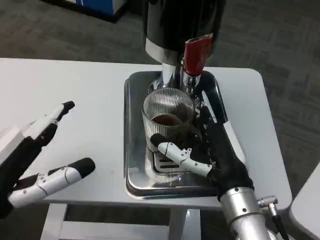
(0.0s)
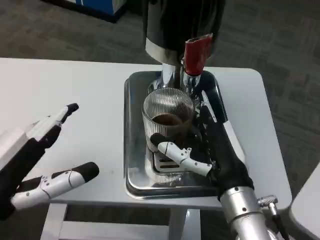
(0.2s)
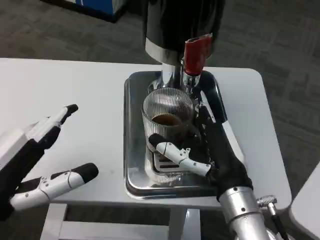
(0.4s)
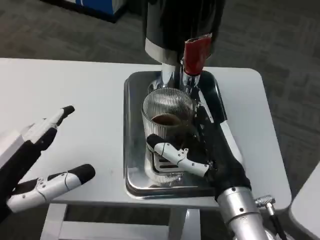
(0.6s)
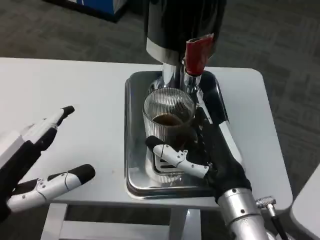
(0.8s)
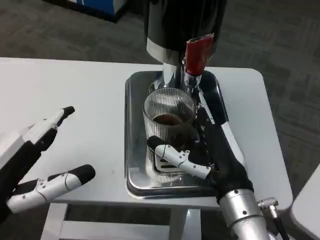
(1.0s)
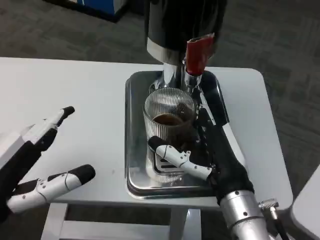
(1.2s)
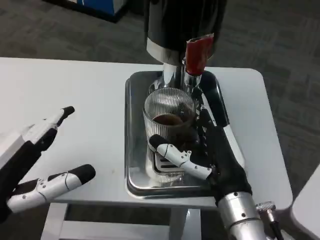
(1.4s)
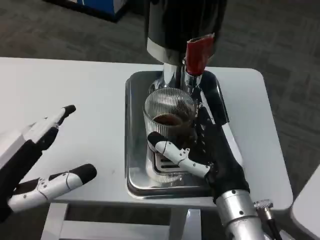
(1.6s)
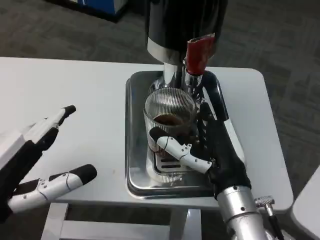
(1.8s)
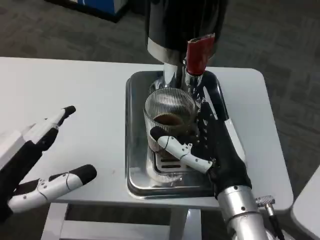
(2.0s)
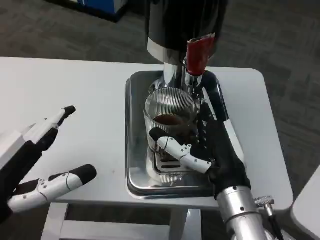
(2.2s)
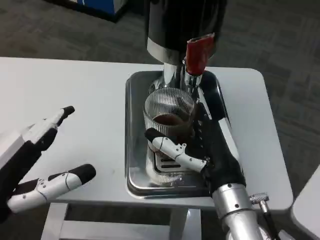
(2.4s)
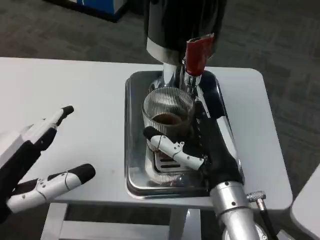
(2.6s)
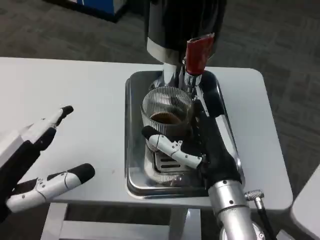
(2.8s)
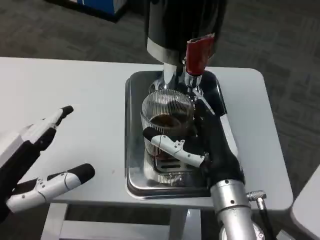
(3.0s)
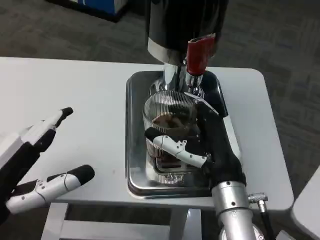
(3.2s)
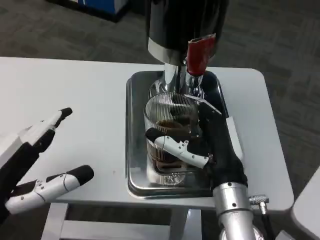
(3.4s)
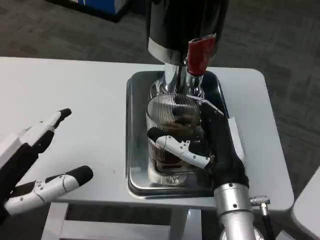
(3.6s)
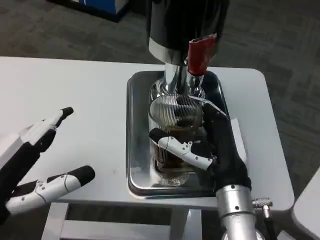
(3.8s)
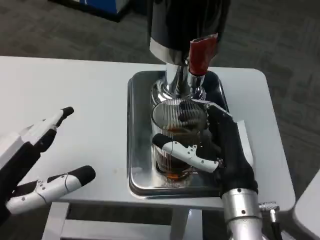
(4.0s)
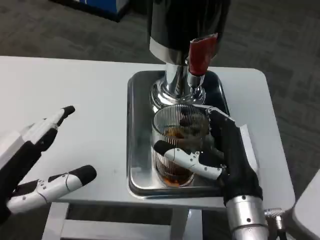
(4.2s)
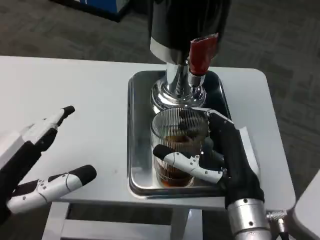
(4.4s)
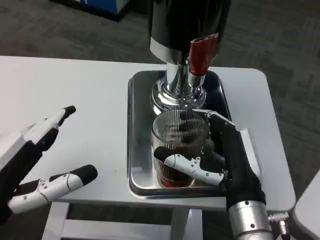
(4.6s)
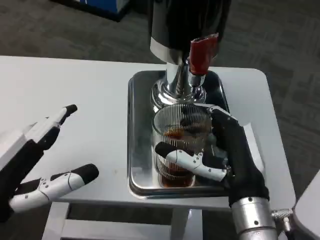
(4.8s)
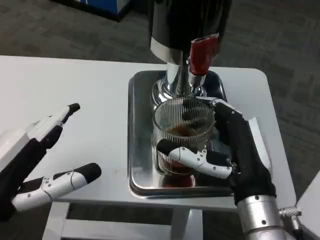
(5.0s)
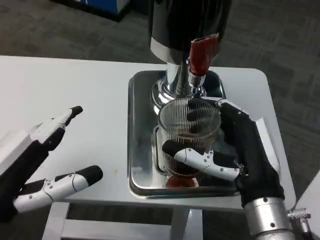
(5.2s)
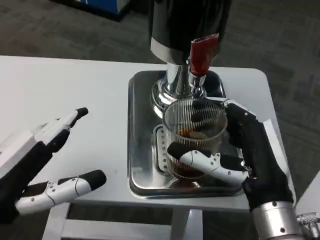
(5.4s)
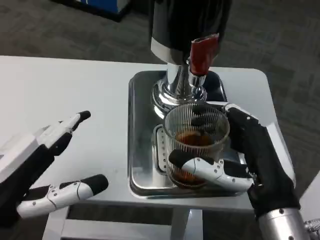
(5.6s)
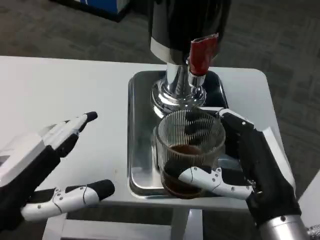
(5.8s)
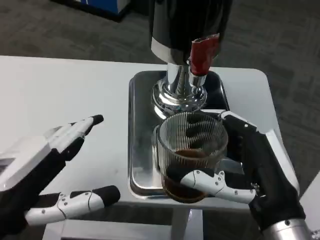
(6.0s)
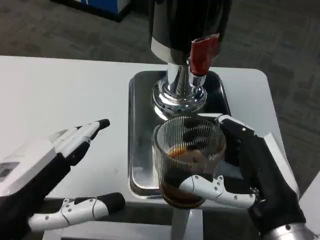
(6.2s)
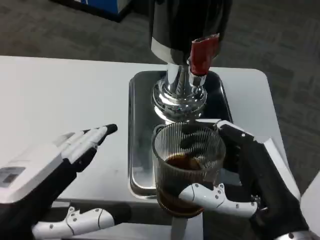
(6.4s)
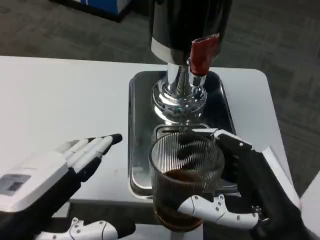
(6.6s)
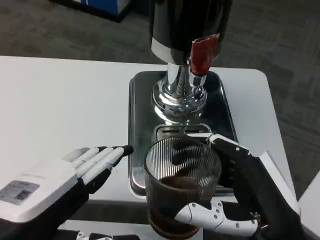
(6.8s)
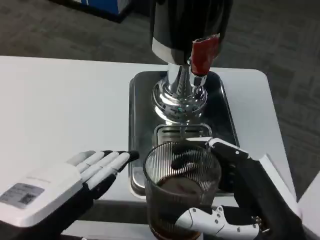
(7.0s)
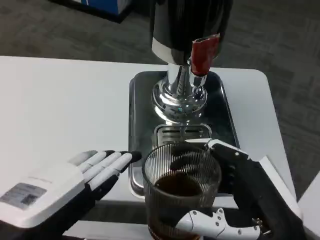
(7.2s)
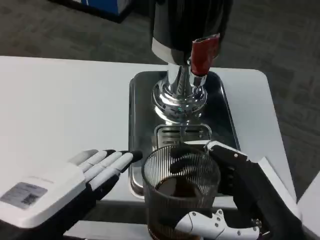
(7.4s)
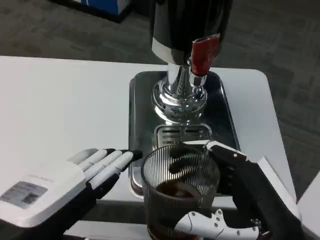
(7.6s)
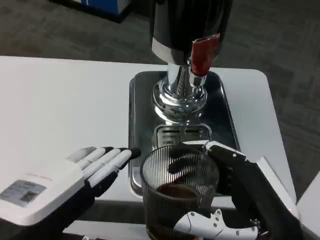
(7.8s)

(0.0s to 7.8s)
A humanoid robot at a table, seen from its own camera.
Task of the whole recording: Grasp the cup under the faucet to collect the drink, then remove the cup.
0.0s - 3.2s: The hands move only a little.
4.6s - 6.2s: The right hand travels backward by roughly 5 cm.

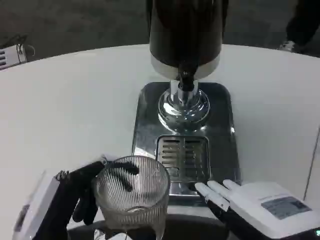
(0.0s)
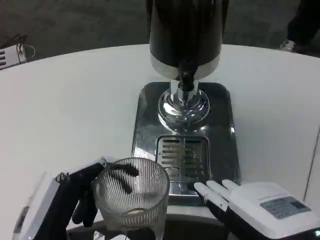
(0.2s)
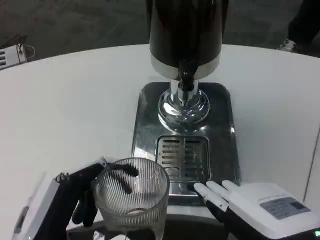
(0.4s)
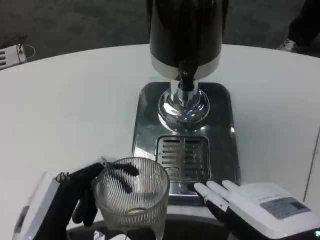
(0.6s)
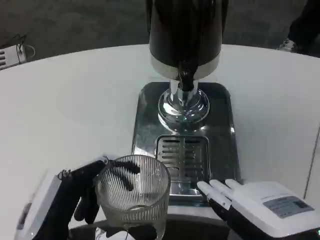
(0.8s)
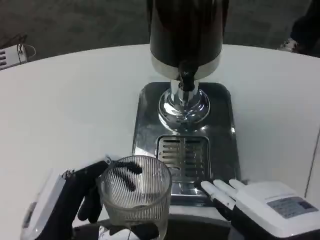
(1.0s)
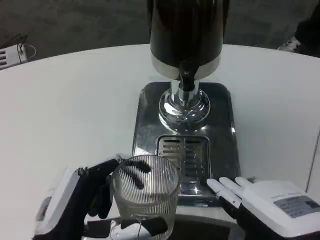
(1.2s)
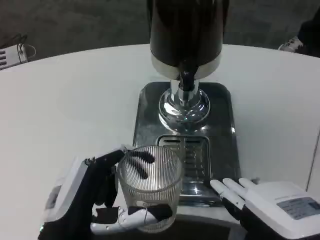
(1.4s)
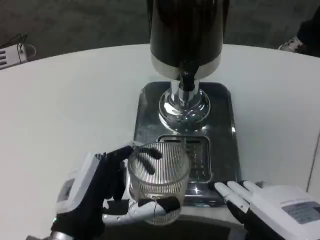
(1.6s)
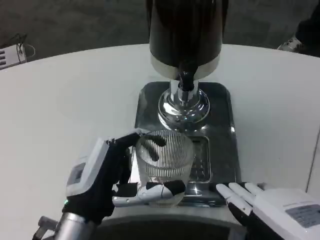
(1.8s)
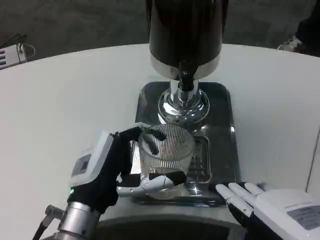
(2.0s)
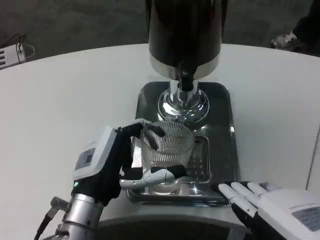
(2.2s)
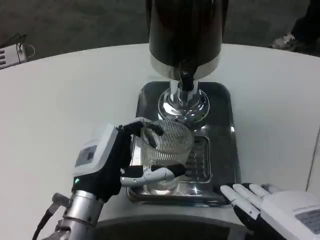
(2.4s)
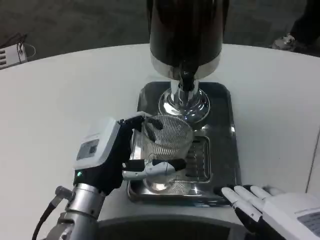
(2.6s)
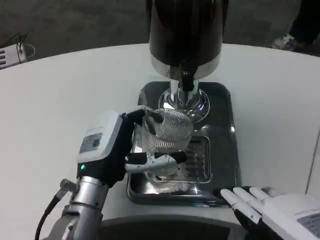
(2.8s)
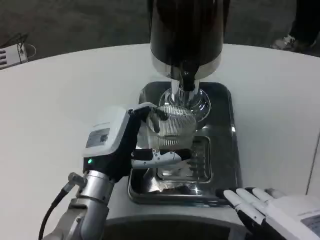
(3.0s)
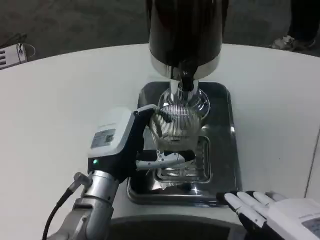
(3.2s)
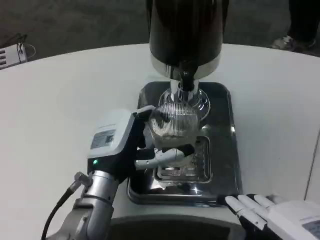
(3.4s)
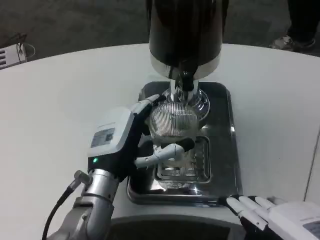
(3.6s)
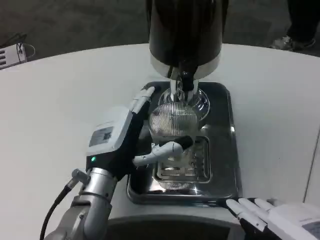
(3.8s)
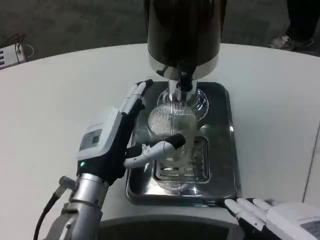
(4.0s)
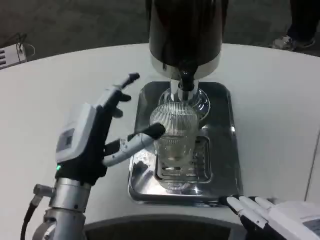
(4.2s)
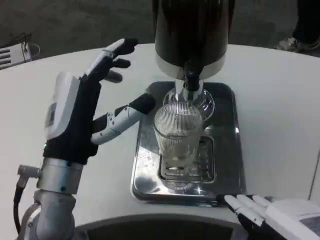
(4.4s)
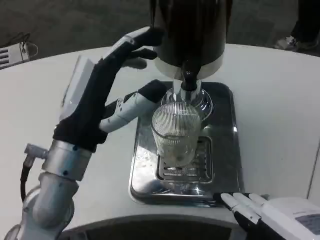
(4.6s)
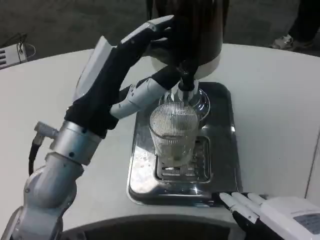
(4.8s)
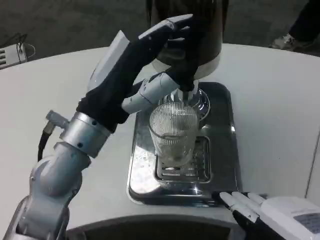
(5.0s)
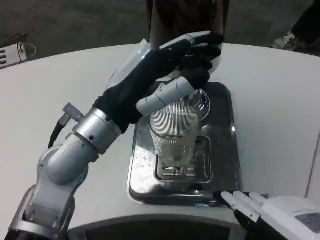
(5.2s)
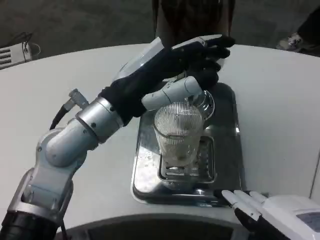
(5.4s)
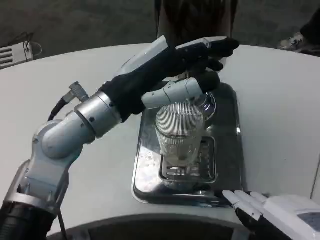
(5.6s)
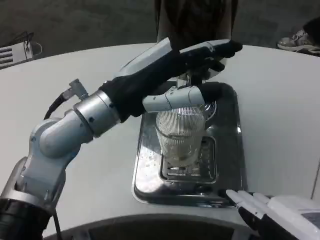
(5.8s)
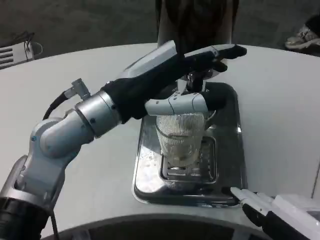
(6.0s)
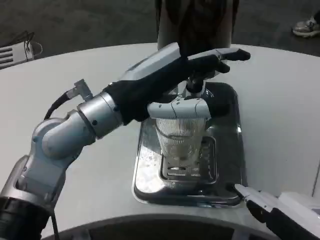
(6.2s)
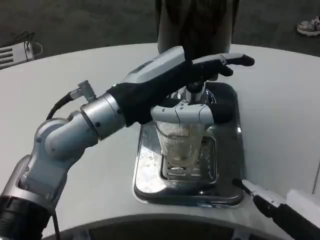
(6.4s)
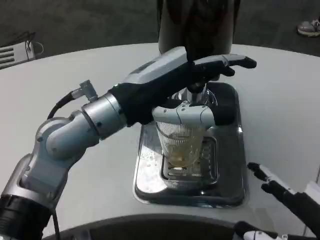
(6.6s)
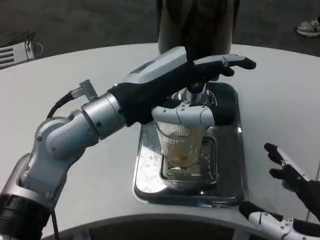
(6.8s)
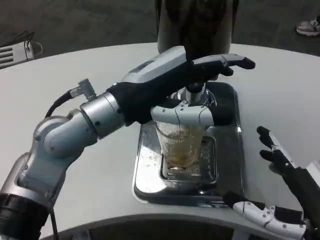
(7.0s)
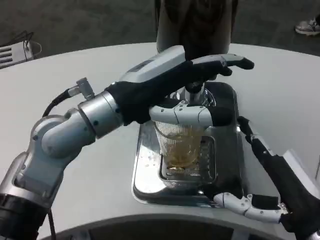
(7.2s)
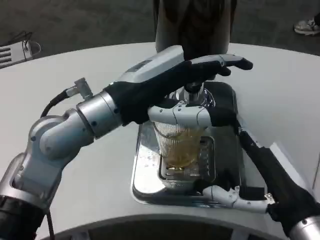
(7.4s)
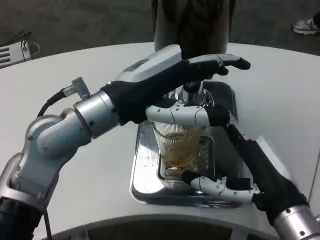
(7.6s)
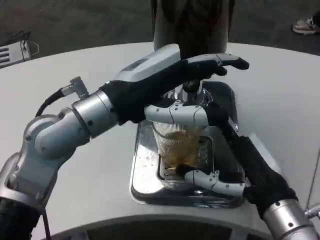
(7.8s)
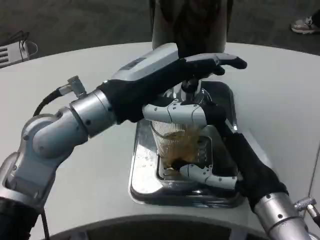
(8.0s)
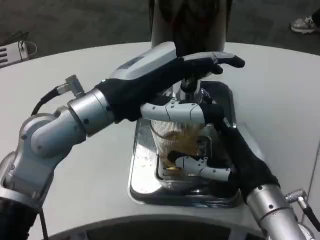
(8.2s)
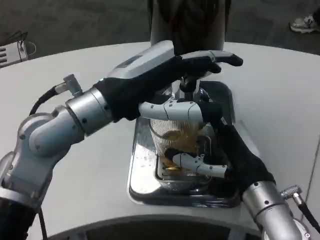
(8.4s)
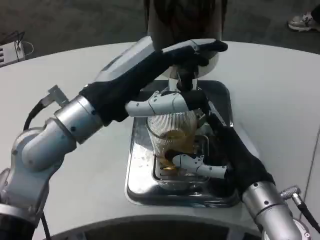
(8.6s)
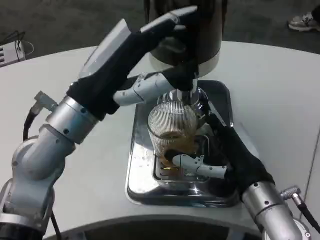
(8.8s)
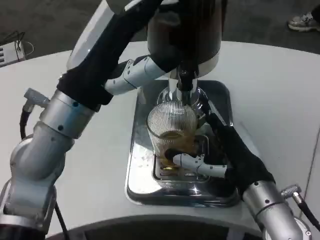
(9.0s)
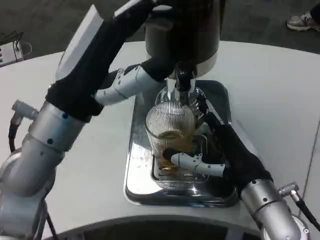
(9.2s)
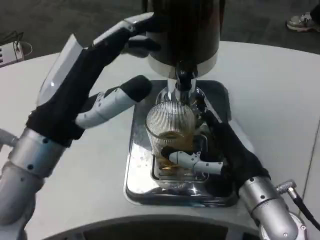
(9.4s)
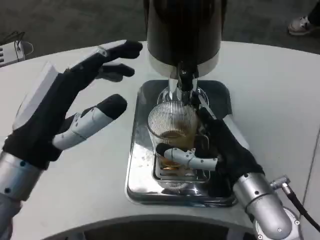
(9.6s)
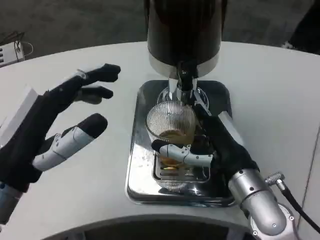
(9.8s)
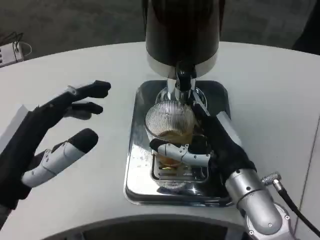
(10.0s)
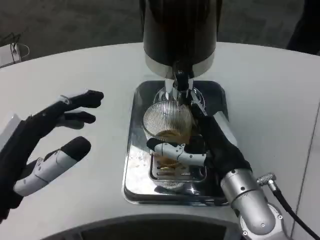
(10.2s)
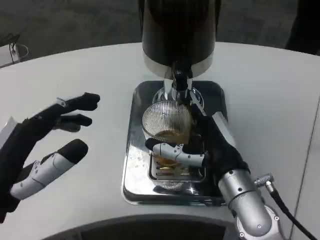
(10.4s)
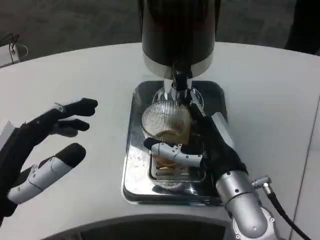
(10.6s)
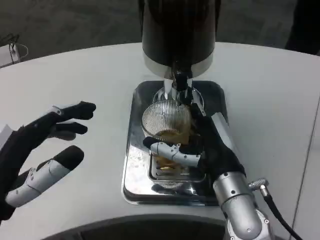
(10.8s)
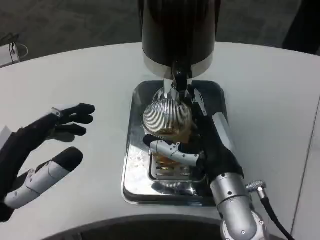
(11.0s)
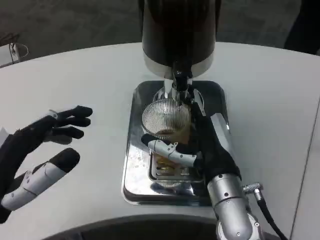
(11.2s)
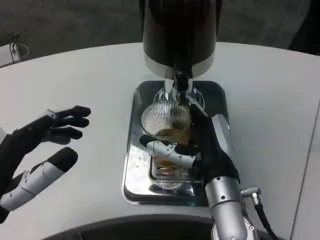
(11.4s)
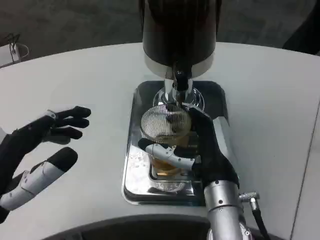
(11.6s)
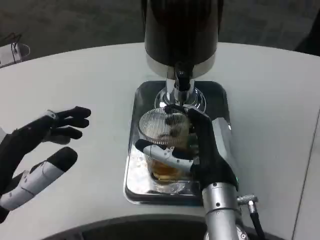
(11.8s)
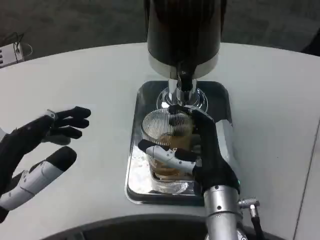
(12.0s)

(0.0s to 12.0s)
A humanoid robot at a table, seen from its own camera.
Task of the whole recording: Grasp the cup under the faucet to collect the drink, then remove the cup.
0.0s - 1.6s: The left hand travels forward by about 5 cm.
1.6s - 3.0s: The left hand moves forward, approximately 10 cm.
3.0s - 4.4s: The left hand moves upward, approximately 5 cm.
4.4s - 6.0s: The left hand shifts roughly 10 cm upward.
6.0s - 7.6s: The right hand moves forward and downward, approximately 10 cm.
7.6s - 9.0s: The right hand moves some 5 cm.
9.0s - 10.4s: The left hand goes about 15 cm backward, to the left and downward.

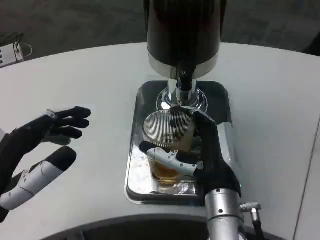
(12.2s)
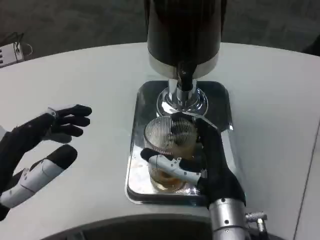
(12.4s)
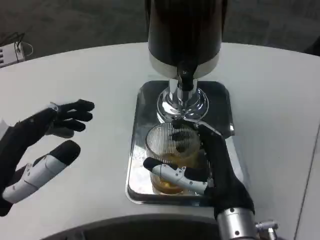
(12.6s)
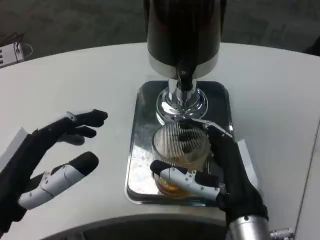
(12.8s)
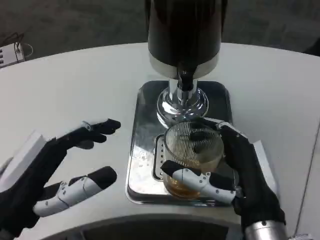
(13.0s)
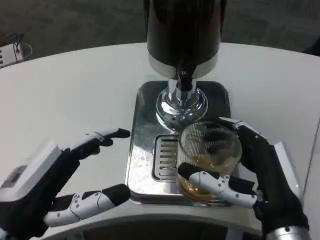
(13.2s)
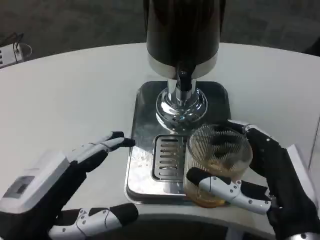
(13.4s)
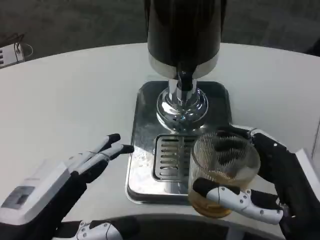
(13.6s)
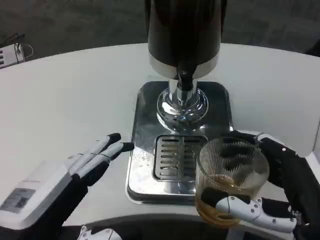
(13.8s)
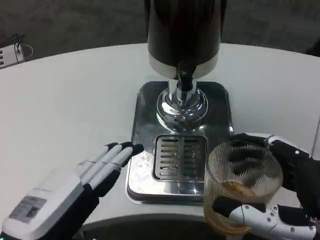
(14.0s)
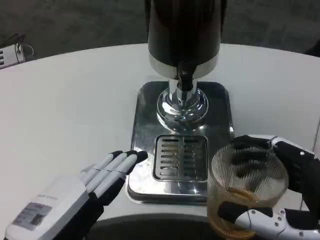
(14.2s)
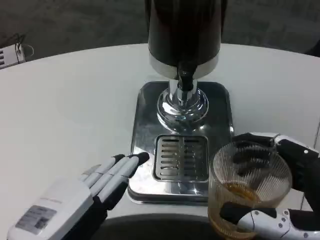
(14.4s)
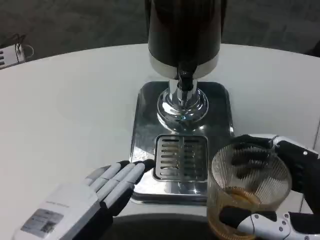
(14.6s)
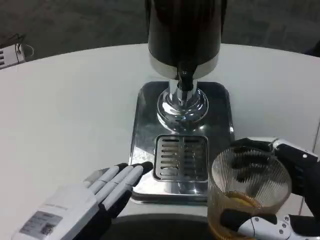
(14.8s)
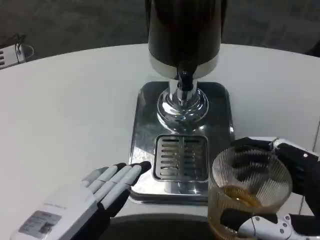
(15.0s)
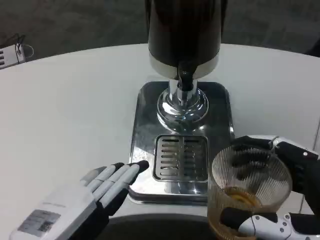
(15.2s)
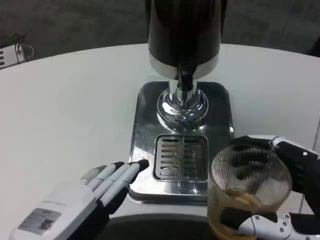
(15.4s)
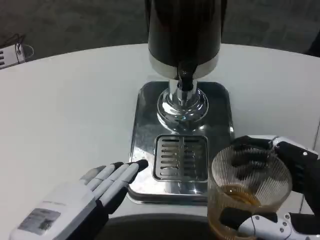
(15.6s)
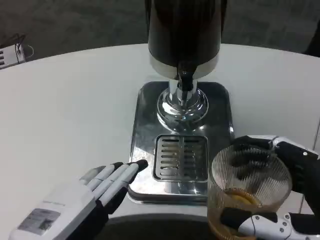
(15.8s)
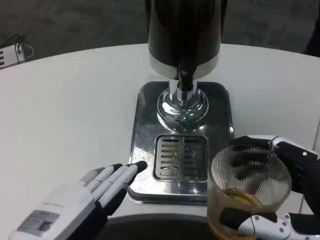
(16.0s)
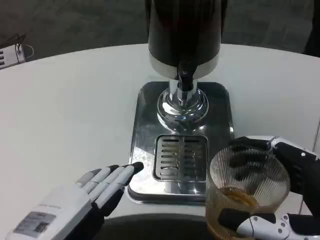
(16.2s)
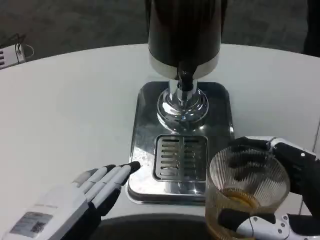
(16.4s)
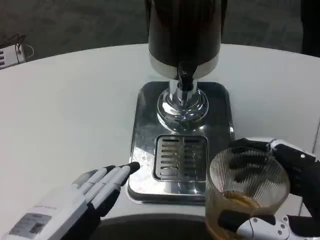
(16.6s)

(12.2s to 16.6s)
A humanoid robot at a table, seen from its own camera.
Task of the whole recording: Grasp the cup under the faucet to collect the drink, then remove the cup.
12.2s - 13.6s: The right hand goes some 15 cm backward and to the right.
13.6s - 15.2s: The right hand ends up roughly 5 cm from where it was.
15.2s - 16.6s: Both hands stay put.
